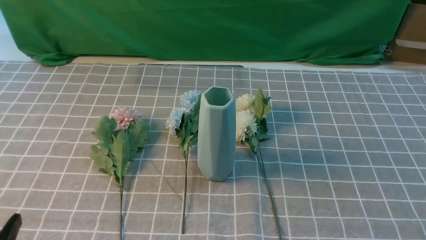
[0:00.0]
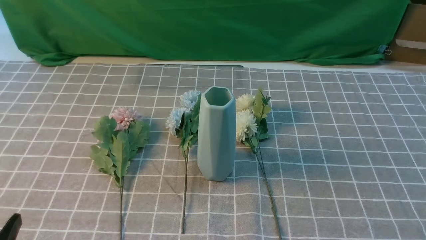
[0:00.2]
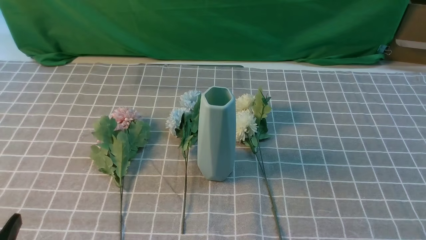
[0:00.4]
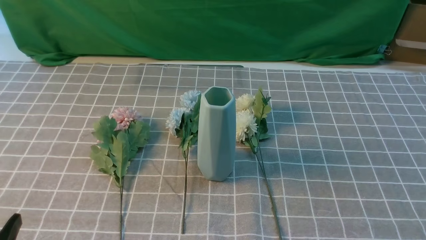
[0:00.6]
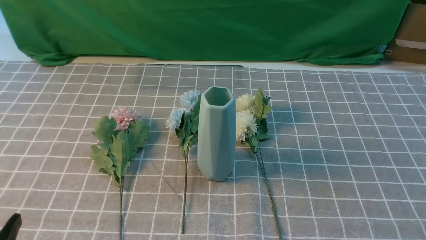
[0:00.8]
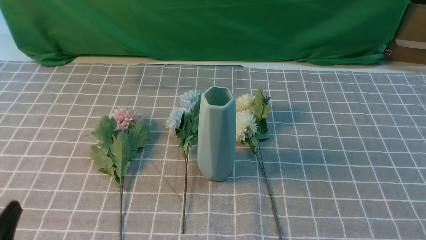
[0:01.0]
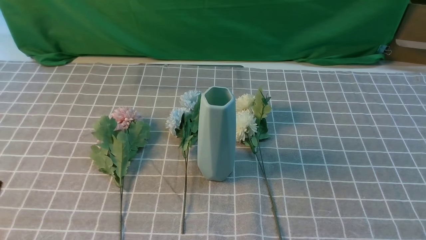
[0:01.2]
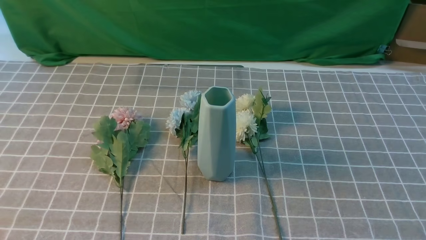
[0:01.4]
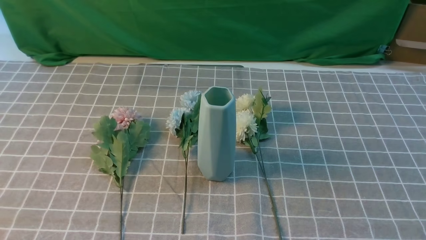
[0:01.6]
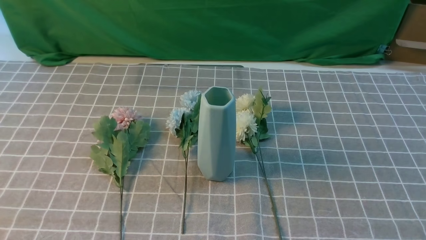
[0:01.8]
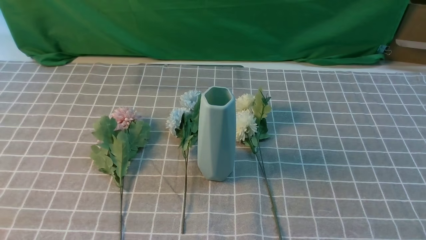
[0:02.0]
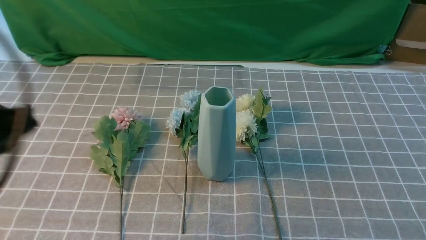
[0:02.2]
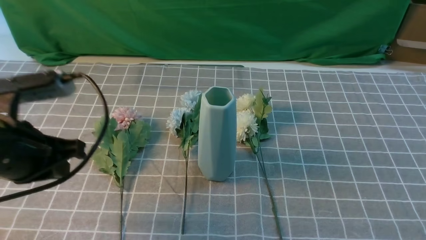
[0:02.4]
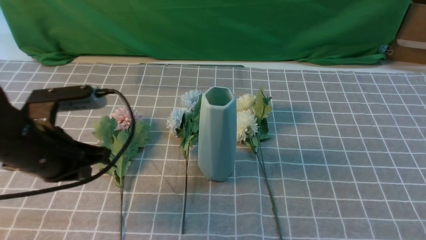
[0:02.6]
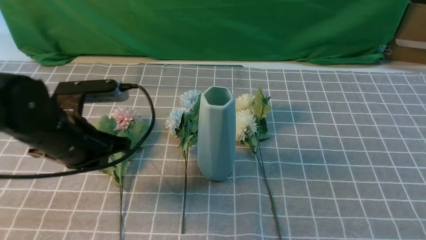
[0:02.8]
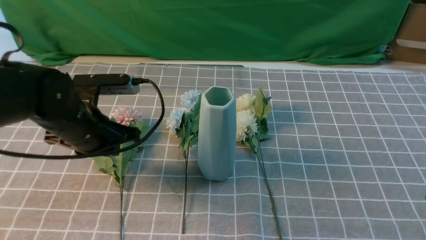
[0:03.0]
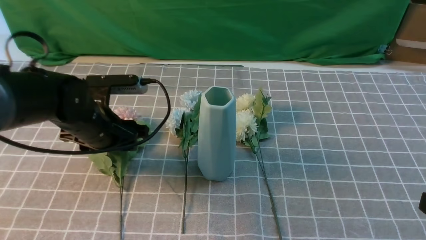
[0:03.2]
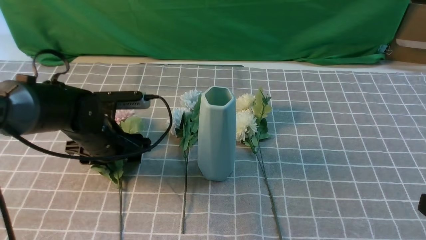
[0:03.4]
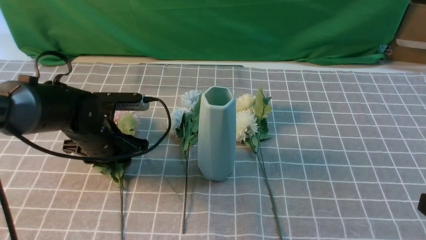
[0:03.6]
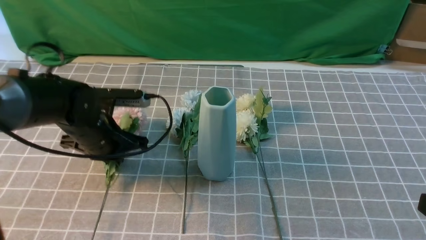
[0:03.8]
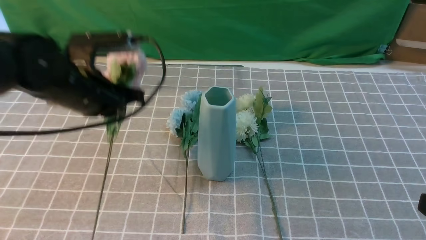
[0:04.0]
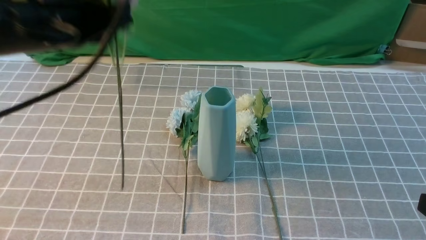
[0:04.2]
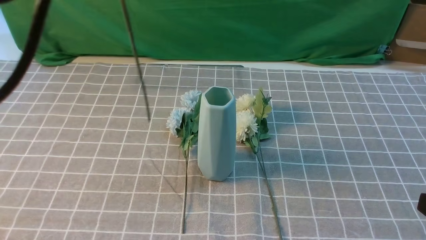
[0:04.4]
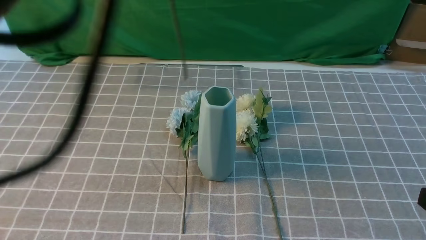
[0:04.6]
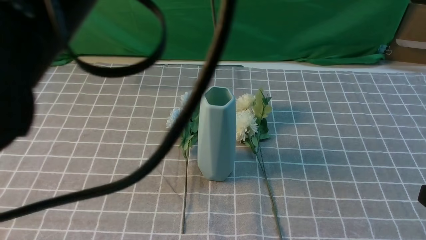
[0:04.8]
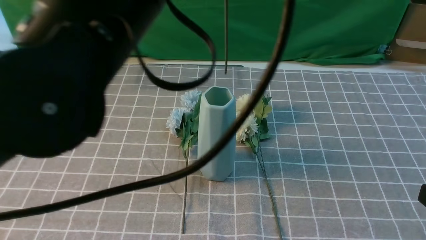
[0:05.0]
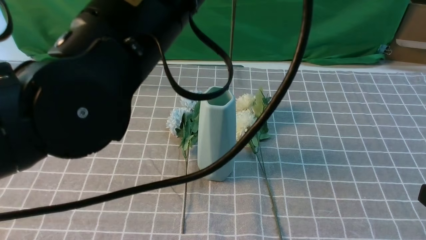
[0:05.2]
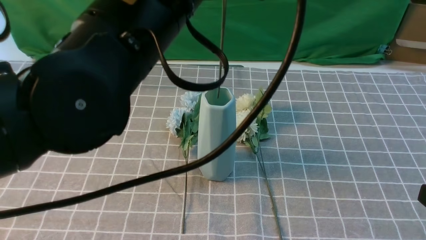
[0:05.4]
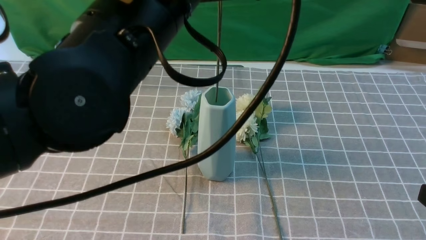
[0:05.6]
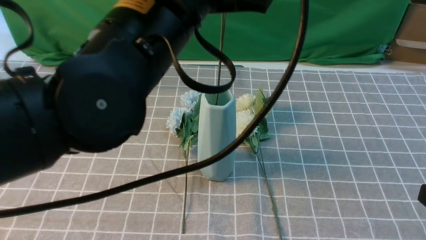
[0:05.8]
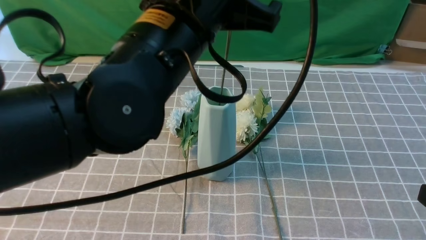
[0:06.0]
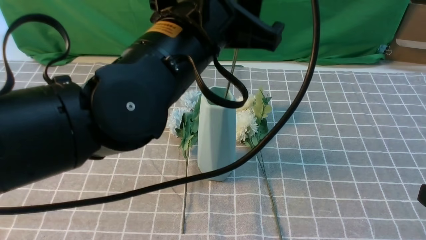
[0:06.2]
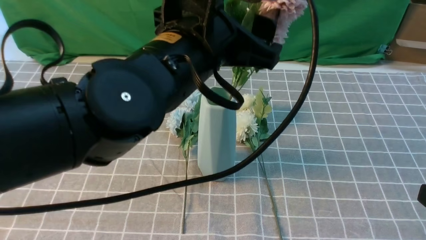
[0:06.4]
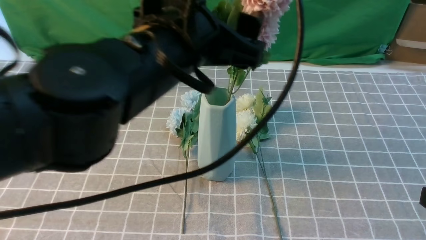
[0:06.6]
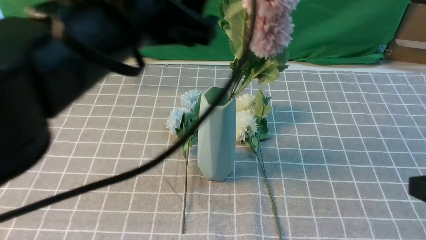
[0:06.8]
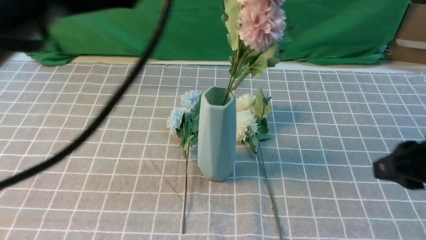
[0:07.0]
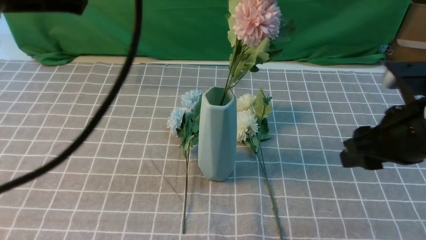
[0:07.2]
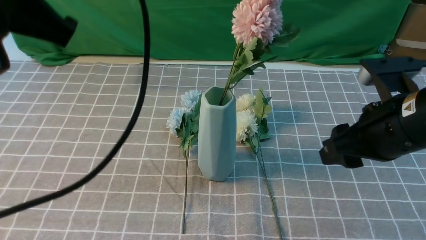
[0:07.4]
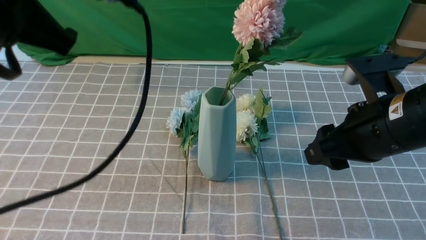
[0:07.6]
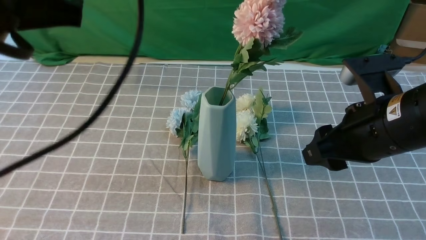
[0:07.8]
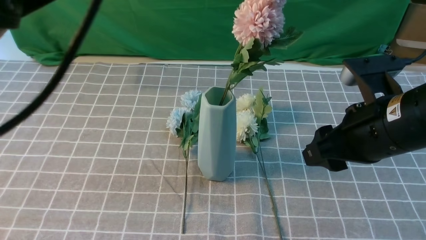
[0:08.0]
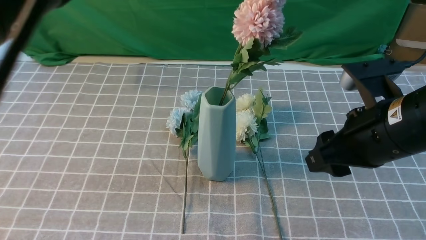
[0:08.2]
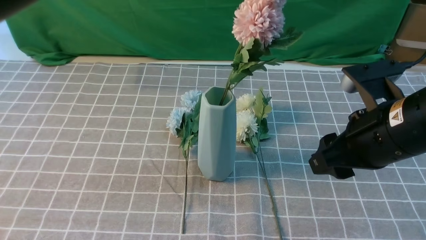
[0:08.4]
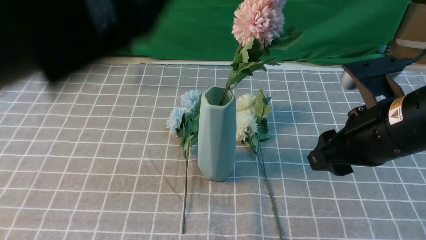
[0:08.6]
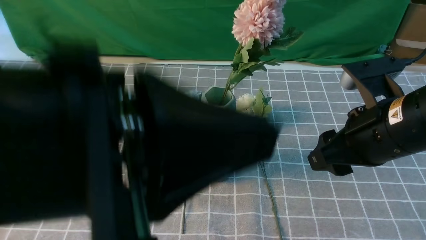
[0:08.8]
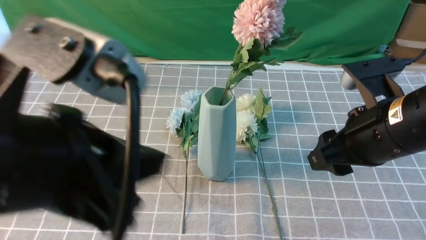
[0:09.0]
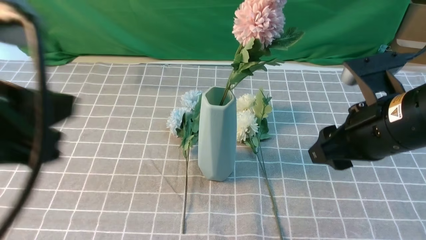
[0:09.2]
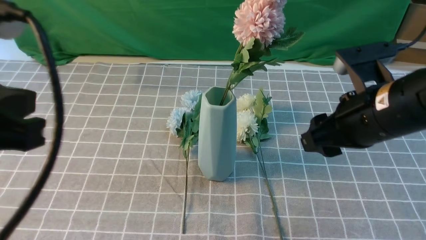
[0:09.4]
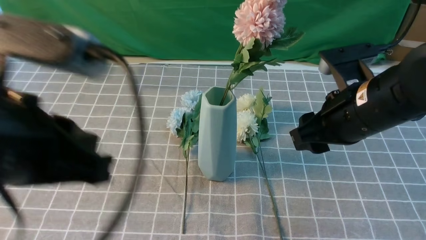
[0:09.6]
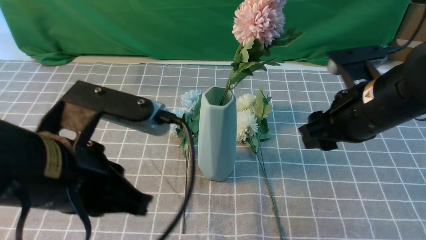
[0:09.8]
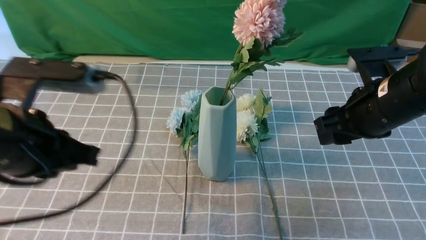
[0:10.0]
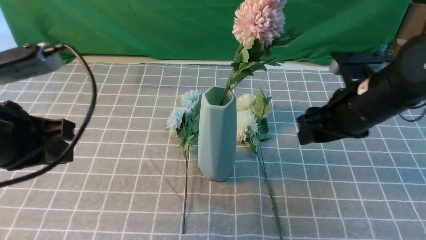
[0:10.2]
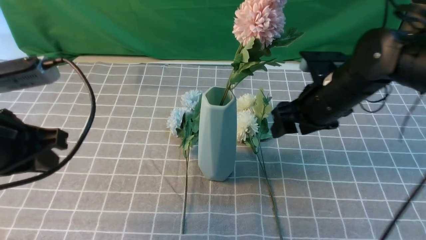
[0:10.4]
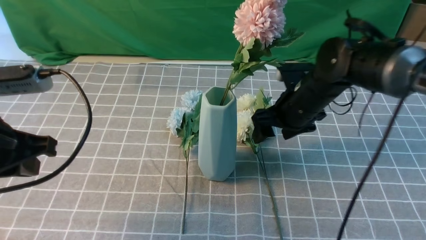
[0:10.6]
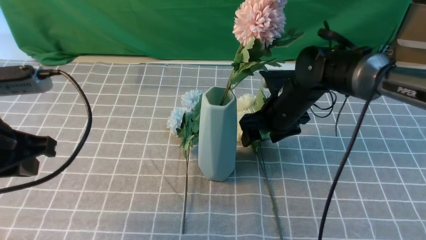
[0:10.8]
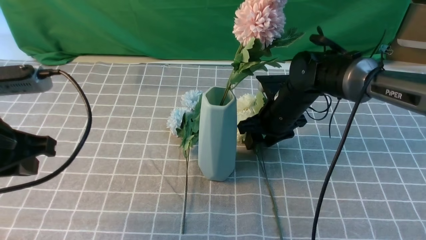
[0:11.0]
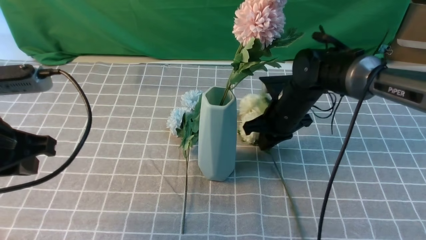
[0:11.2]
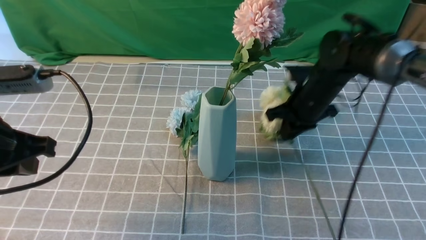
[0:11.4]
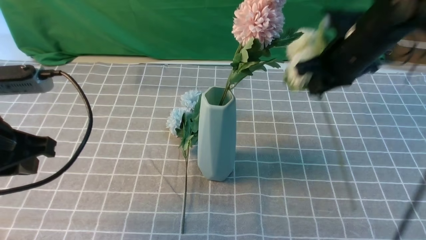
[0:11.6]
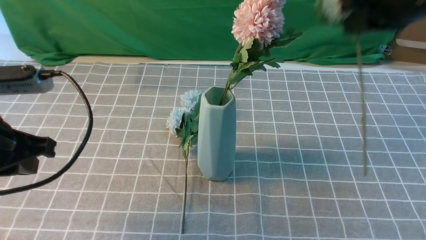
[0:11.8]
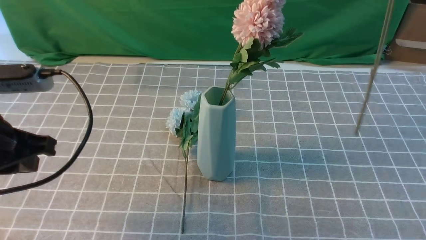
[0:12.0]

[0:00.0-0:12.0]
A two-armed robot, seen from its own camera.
Task of the whole recording: insert the flowers into the vase on the table with the grey tablecloth.
Step, 0:00.0 to 0:03.6: use the left arm to grab a bunch of fresh flowers.
Step, 0:03.8 to 0:06.6: use the left arm to insert the flowers into the vase.
Step, 0:06.8 to 0:11.2: use the right arm to grab a bunch of fresh flowers.
0:01.6 to 0:03.0: The left gripper heads forward, covering about 25 cm; the right gripper goes about 10 cm upward, and closes its fingers.
0:03.0 to 0:04.4: The left gripper heads upward, covering some 25 cm.
0:04.4 to 0:06.0: The left gripper goes about 15 cm to the right and downward.
0:06.0 to 0:07.6: The right gripper is displaced forward and to the left by approximately 20 cm, and opens up. Meanwhile the left gripper goes roughly 15 cm to the left and backward, and opens and closes again.
0:07.6 to 0:09.0: The left gripper shifts approximately 10 cm backward.
0:09.0 to 0:10.4: The right gripper shifts some 15 cm forward and downward, while the left gripper travels forward, to the left and downward by some 20 cm.
0:10.4 to 0:12.0: The right gripper goes roughly 25 cm upward and backward, and closes.

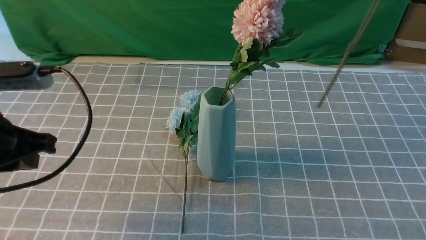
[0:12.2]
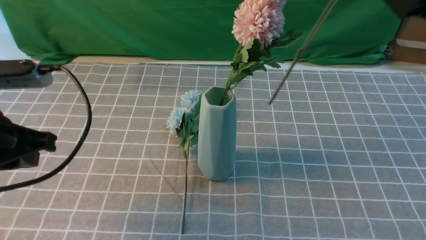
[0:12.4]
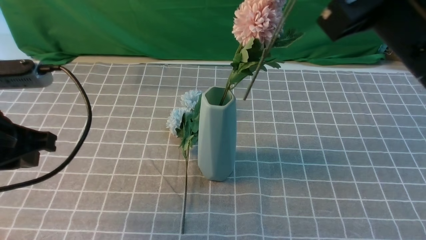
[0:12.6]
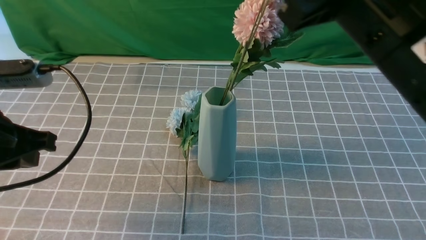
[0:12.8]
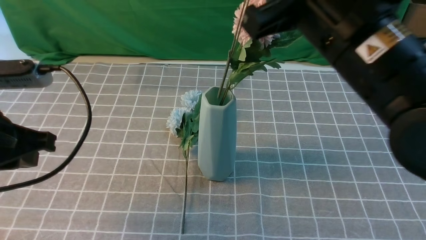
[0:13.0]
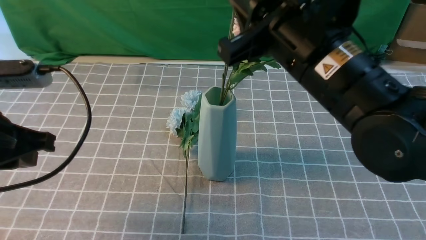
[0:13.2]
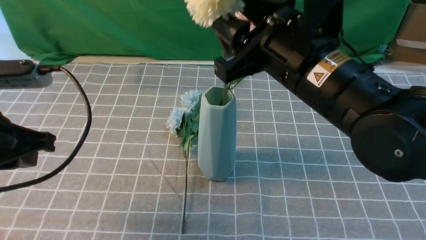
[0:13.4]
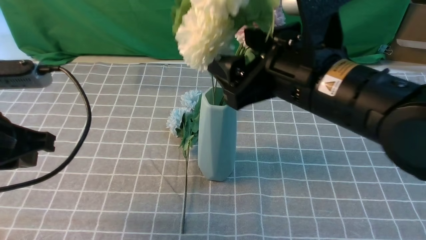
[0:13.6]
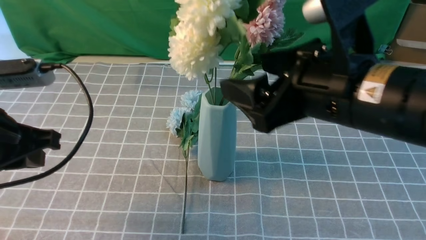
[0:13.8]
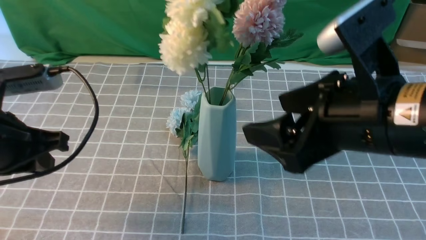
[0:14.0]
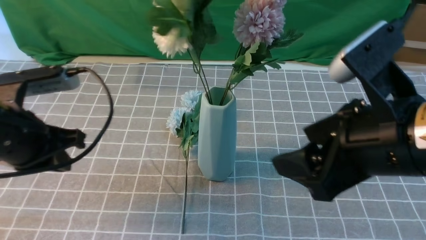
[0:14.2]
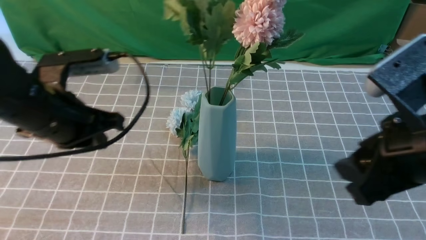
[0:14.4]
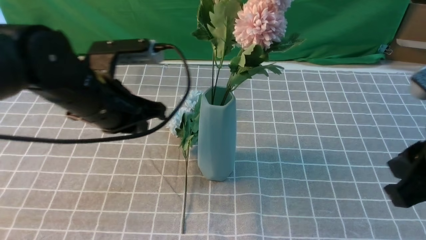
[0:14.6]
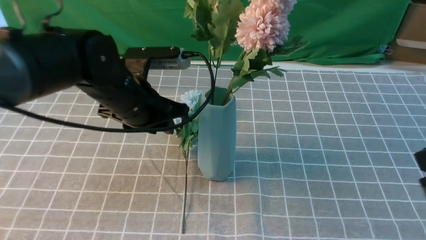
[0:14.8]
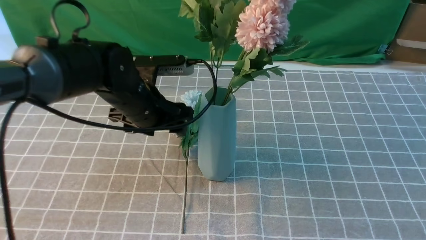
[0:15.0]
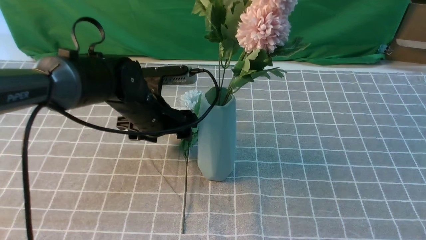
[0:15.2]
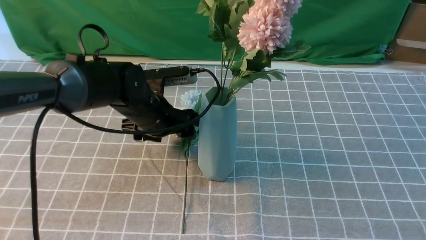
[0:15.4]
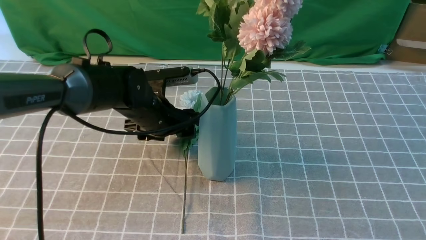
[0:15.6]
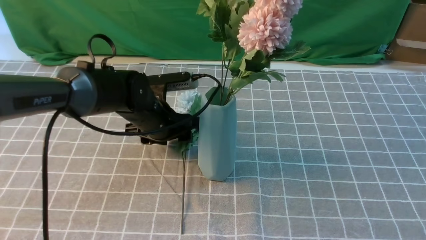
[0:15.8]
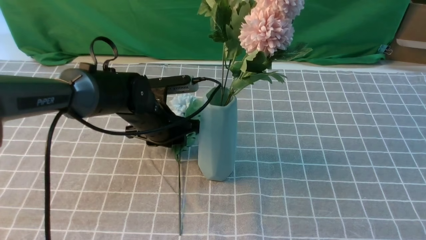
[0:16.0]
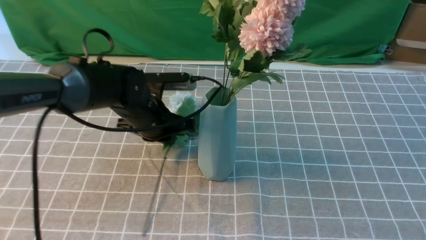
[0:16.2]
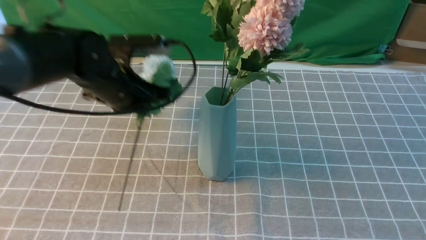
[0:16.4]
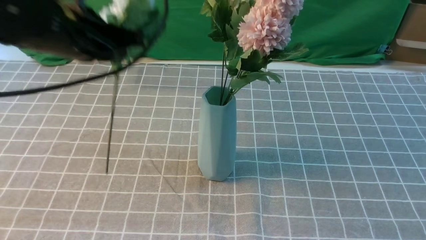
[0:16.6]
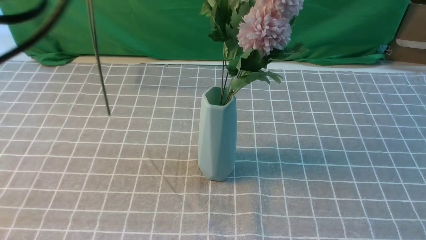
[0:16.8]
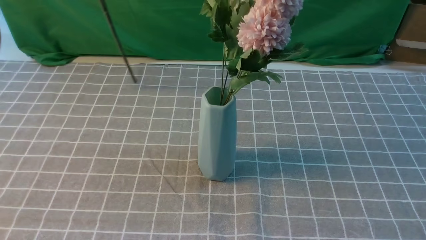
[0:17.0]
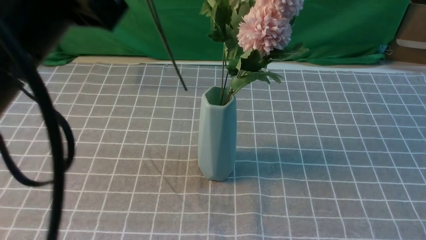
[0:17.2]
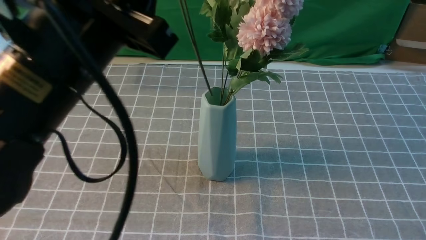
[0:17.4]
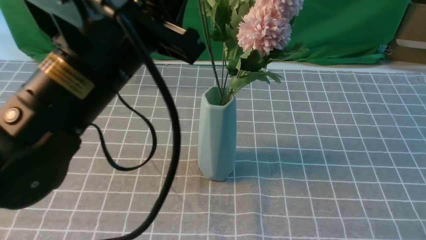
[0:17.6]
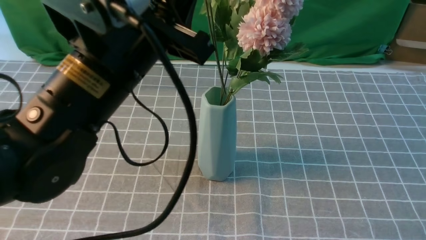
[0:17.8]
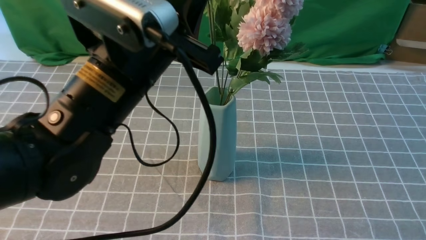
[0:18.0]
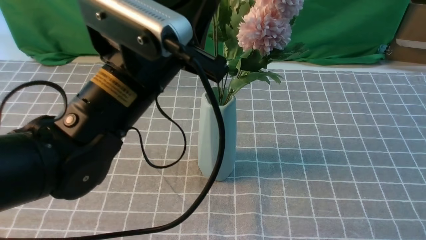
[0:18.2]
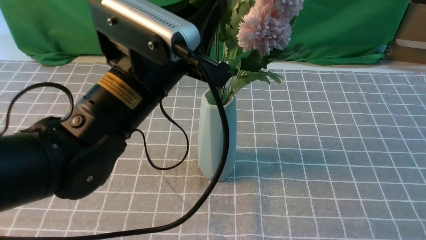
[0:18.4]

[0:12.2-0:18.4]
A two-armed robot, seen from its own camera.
Task of the whole recording: insert the flowers into the vase on the table with the grey tablecloth.
Step, 0:12.2 to 0:13.6: use the right arm to insert the flowers into the vase.
Step, 0:14.0 to 0:16.2: use the left arm to grab a bunch of fresh flowers.
0:12.2 to 0:13.8: The right gripper goes approximately 15 cm downward and to the left, and opens its fingers.
0:13.8 to 0:15.4: The left gripper shifts roughly 25 cm forward, to the right and downward, and opens up. The right gripper heads to the right and backward, covering approximately 20 cm, and closes its fingers.
0:15.4 to 0:16.8: The left gripper is displaced upward and backward by some 30 cm, and closes.
0:16.8 to 0:18.4: The left gripper moves downward and to the right, approximately 15 cm.
